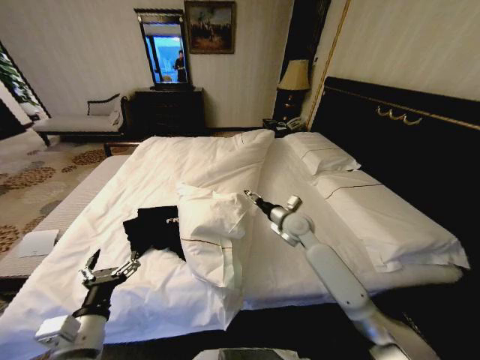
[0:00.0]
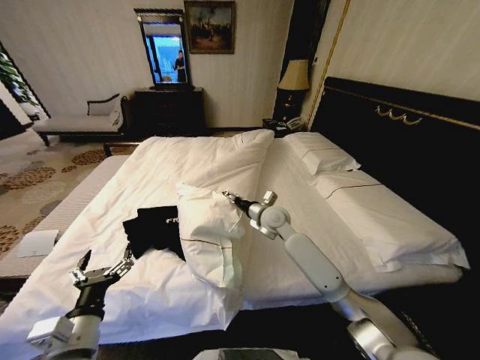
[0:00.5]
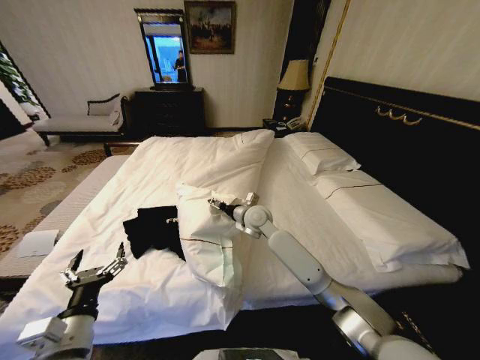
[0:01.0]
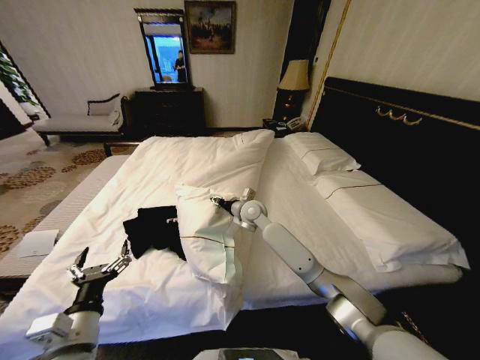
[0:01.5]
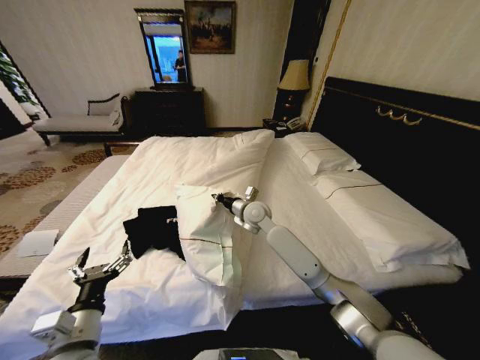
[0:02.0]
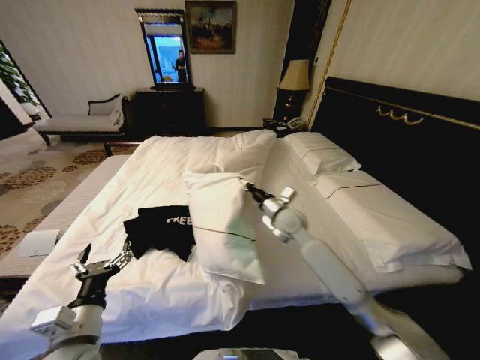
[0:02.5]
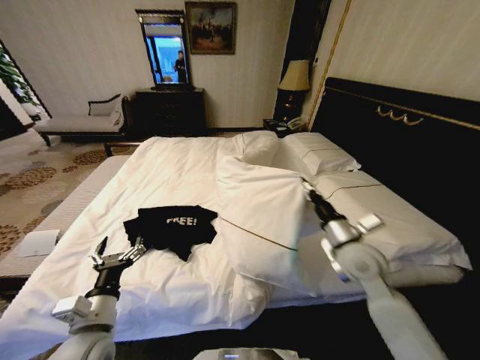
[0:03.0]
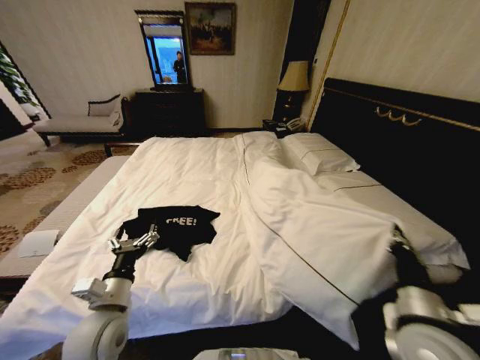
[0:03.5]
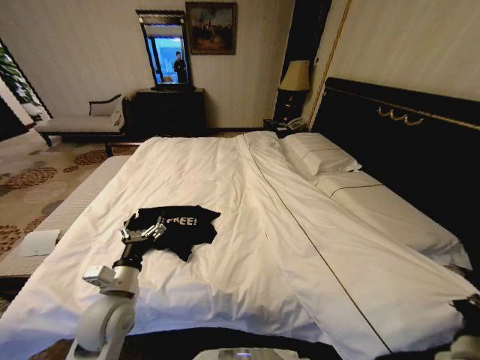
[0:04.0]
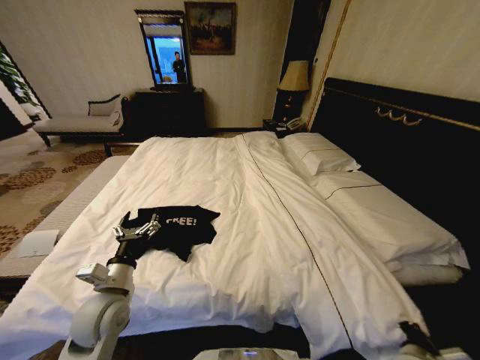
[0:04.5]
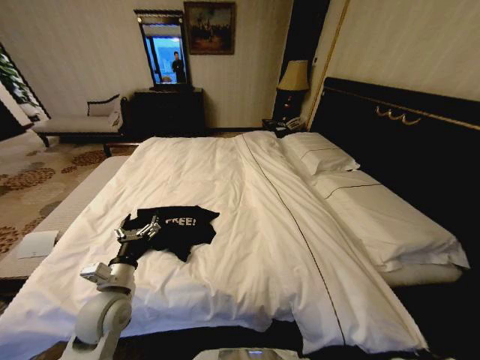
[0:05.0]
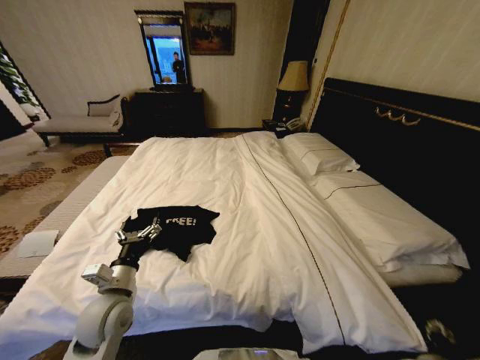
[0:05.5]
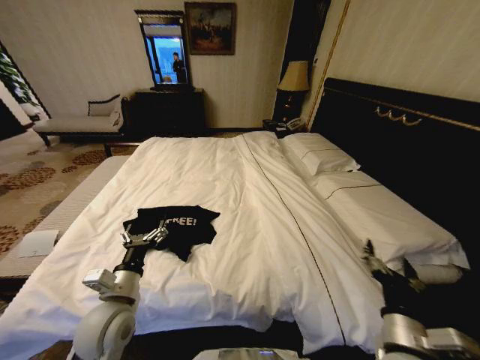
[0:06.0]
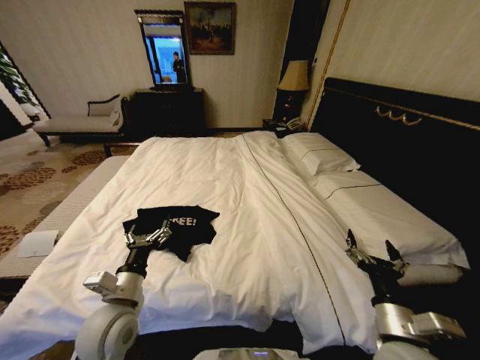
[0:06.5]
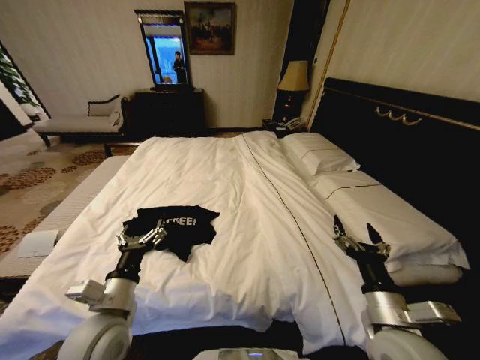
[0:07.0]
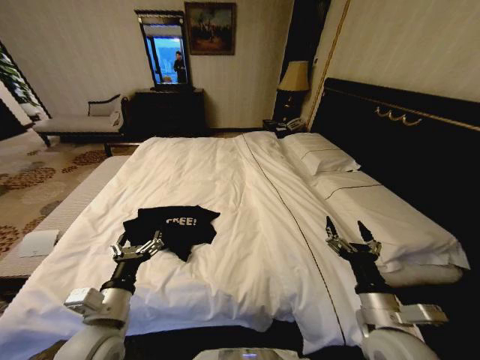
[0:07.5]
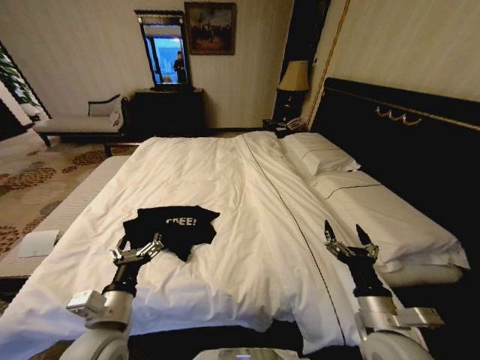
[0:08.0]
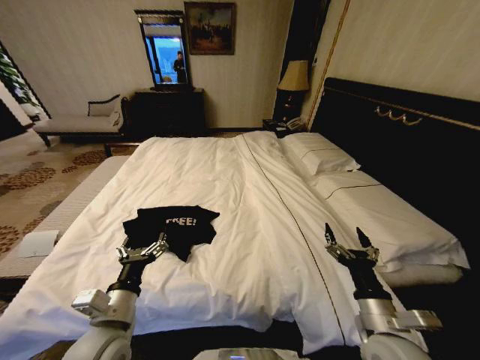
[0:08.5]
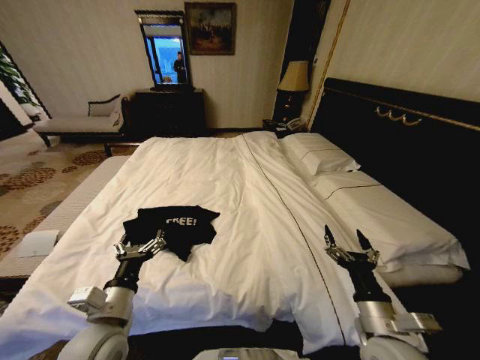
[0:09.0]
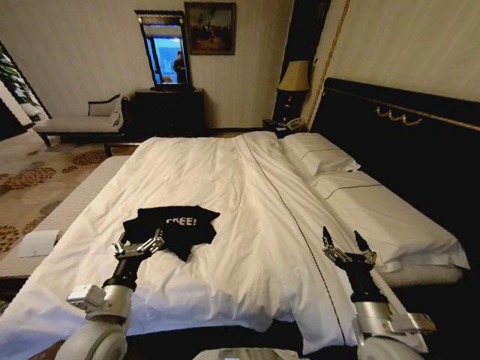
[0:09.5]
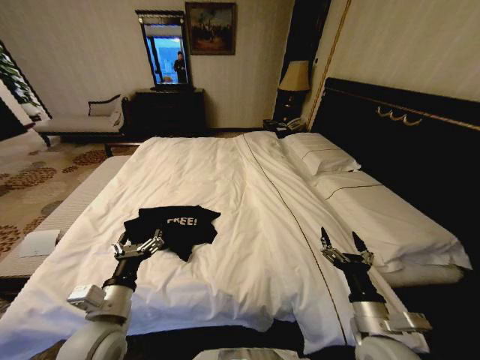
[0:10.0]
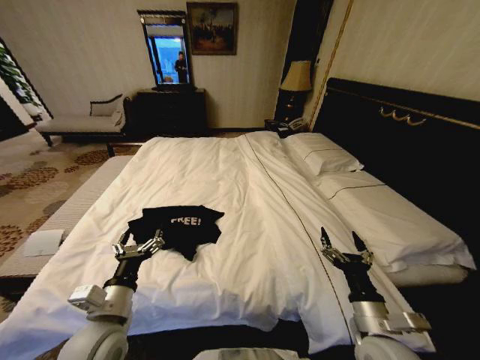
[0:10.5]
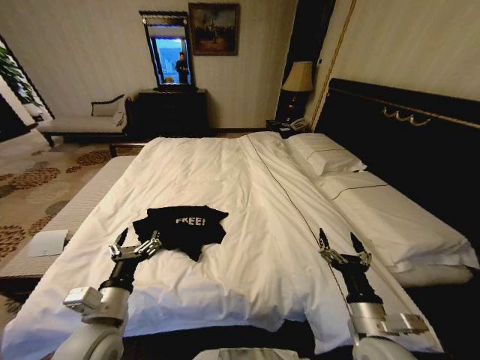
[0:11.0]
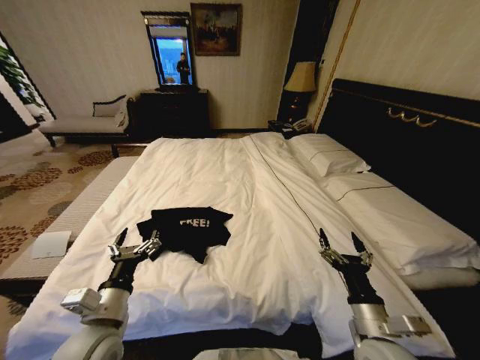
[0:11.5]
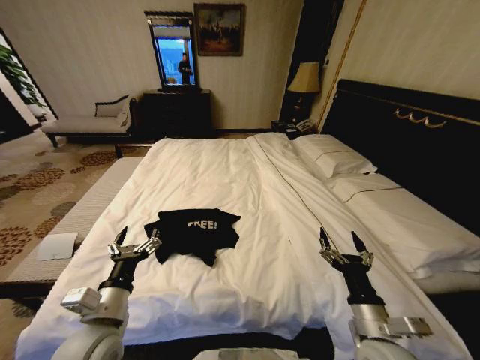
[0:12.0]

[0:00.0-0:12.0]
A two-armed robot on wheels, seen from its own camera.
Task of the whole recording: Fold the clothes on the bed.
0:00.0 to 0:02.0: The right gripper shifts roughly 10 cm to the left, and closes.
0:02.0 to 0:04.0: The left gripper shifts some 10 cm forward. The right gripper is displaced backward and to the right by some 50 cm.
0:04.0 to 0:06.0: The right gripper moves to the left, roughly 5 cm, goes downward and returns, approximately 15 cm each way, and opens.
0:06.0 to 0:08.0: The left gripper shifts by about 5 cm.
0:08.0 to 0:10.0: The grippers make only small movements.

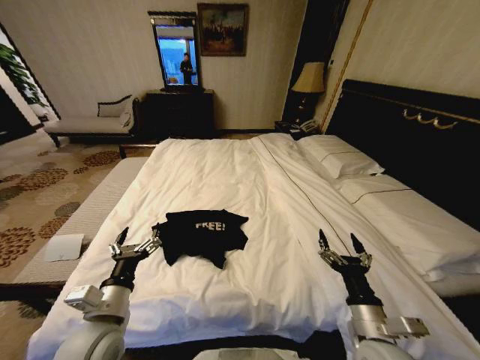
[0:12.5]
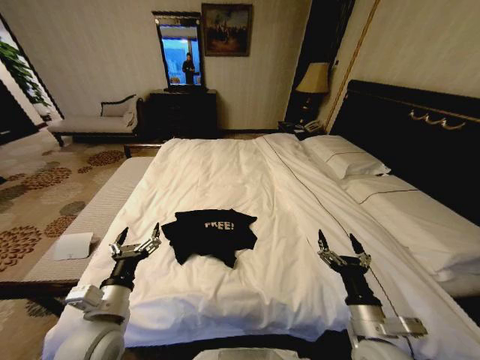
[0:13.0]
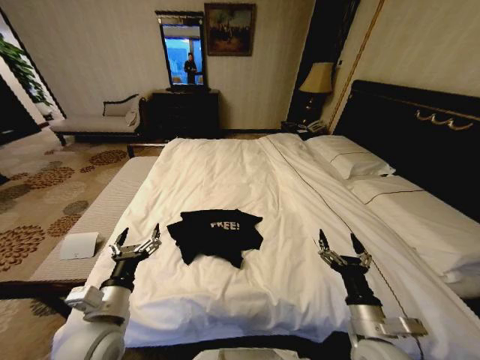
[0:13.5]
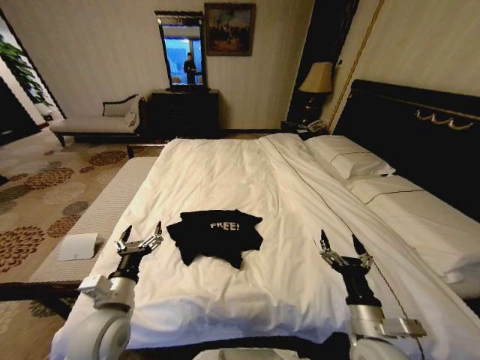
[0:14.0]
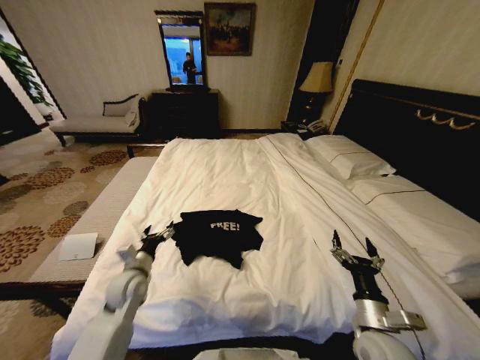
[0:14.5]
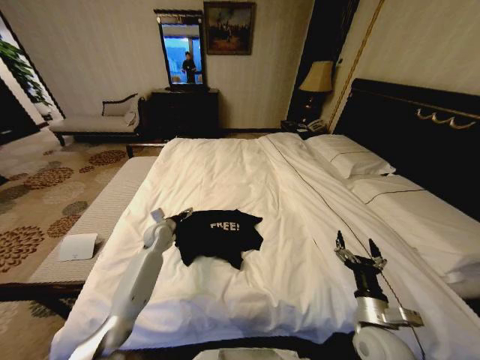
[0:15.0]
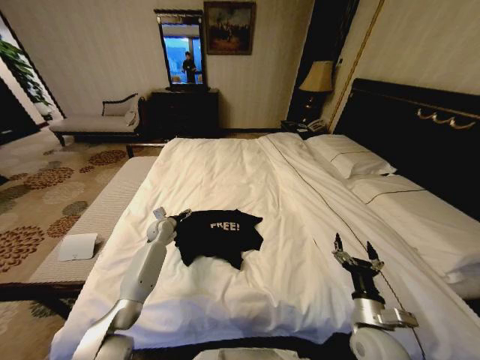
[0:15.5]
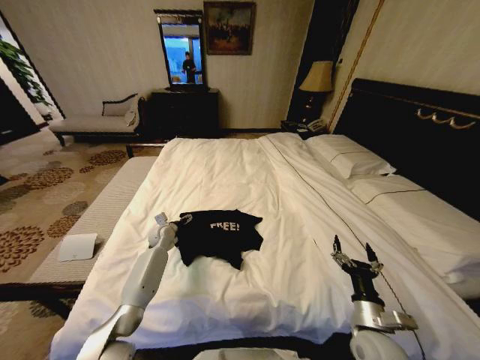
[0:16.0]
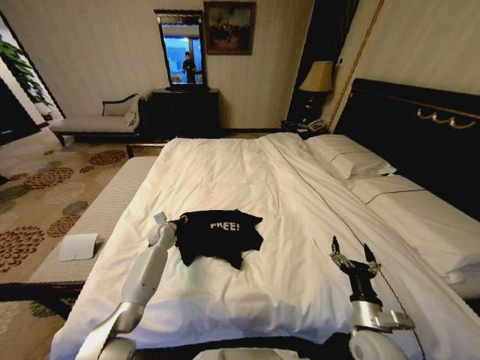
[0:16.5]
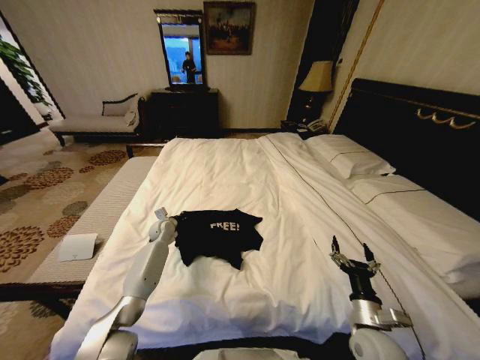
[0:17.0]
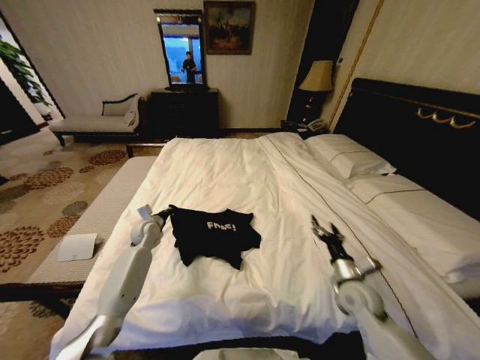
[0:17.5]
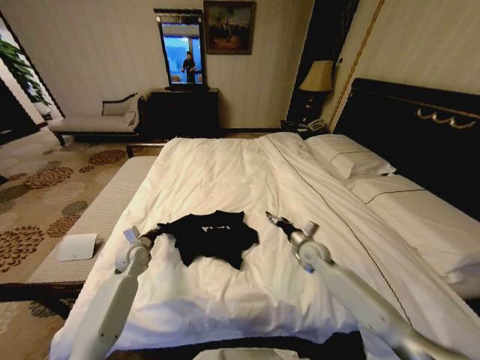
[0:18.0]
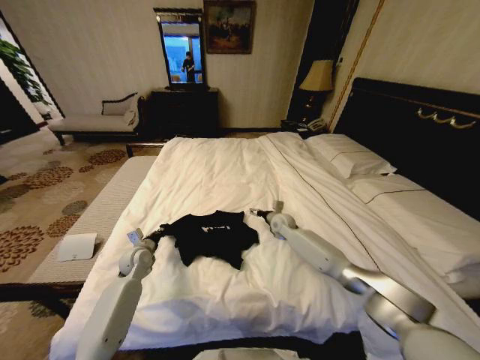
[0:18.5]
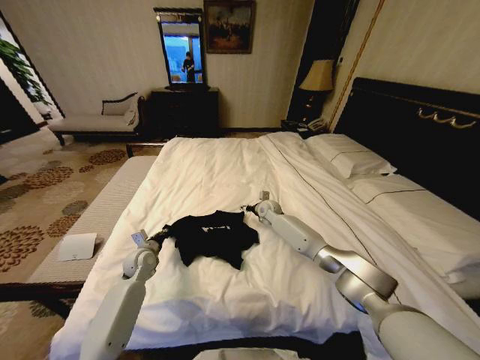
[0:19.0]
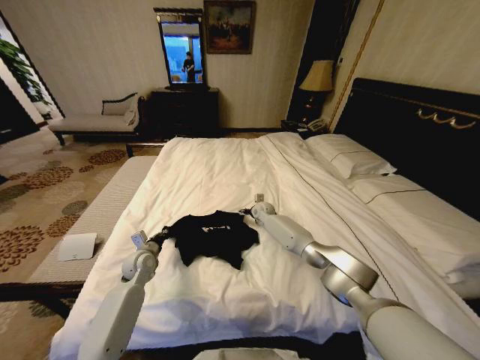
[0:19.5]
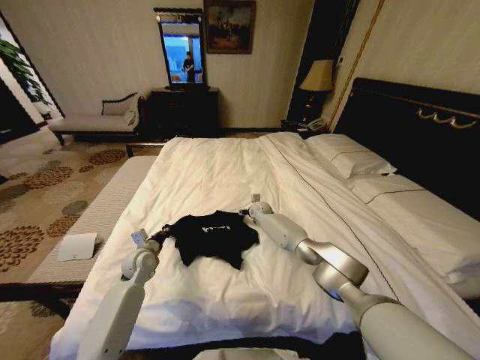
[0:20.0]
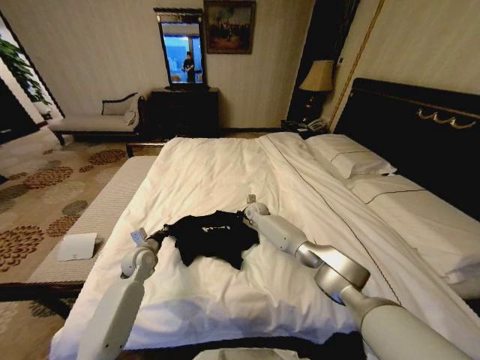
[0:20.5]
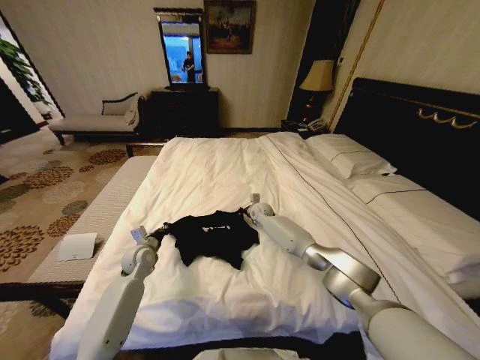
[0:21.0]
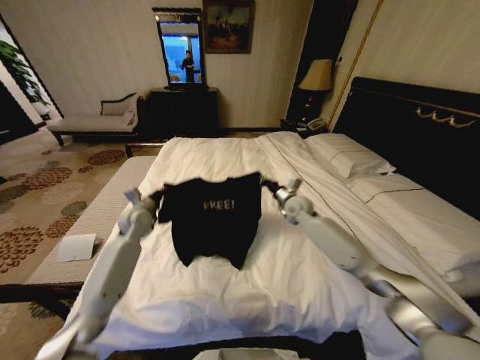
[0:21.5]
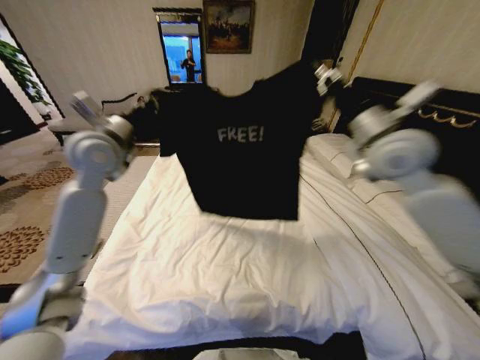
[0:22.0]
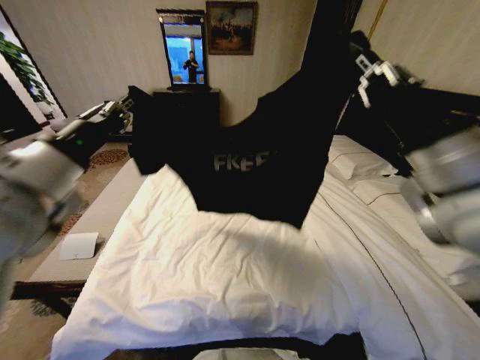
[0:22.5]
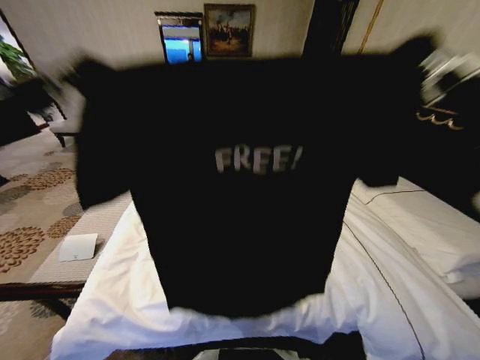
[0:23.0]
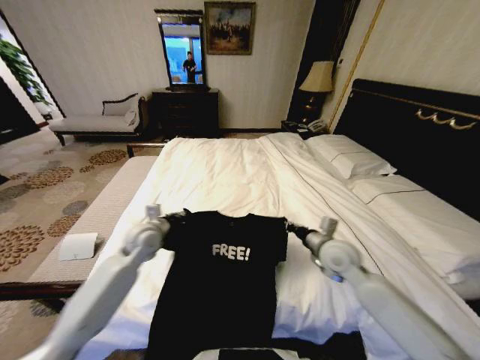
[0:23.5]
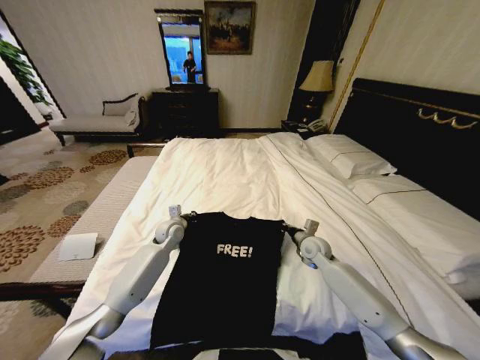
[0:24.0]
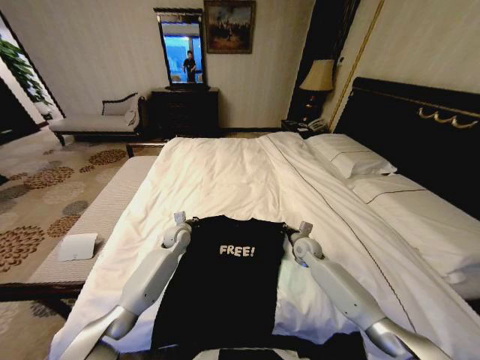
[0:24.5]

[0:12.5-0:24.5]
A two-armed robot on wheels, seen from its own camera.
Task of the whole recording: Fold the clothes on the bed.
0:12.5 to 0:14.5: The left gripper goes roughly 15 cm forward and downward.
0:14.5 to 0:16.5: The left gripper shifts about 20 cm forward, and closes.
0:16.5 to 0:18.5: The right gripper goes roughly 40 cm forward. The left gripper moves backward, some 10 cm, and closes its fingers.
0:18.5 to 0:20.5: The right gripper travels to the left and forward by approximately 10 cm, and closes its fingers.
0:20.5 to 0:22.5: The left gripper goes some 35 cm upward; the right gripper goes roughly 60 cm upward, backward and to the right.
0:22.5 to 0:24.5: The two grippers go some 50 cm downward and forward.

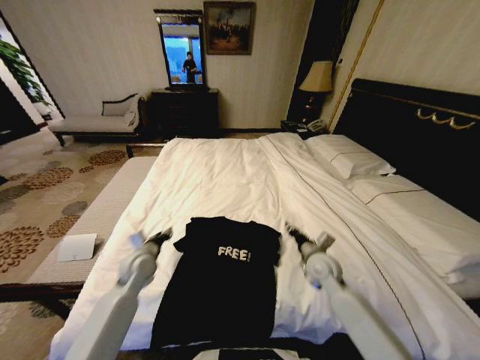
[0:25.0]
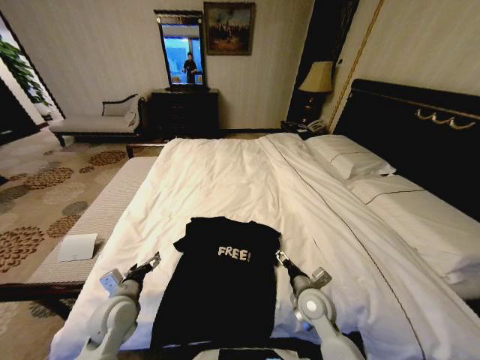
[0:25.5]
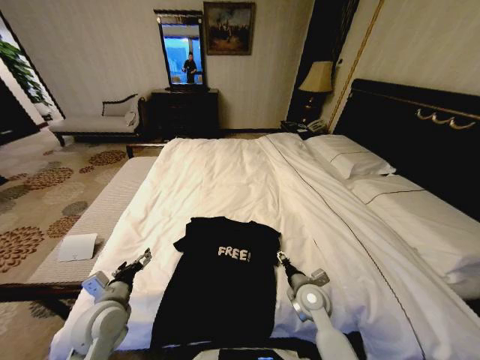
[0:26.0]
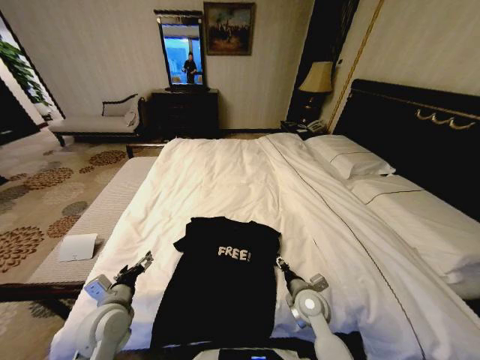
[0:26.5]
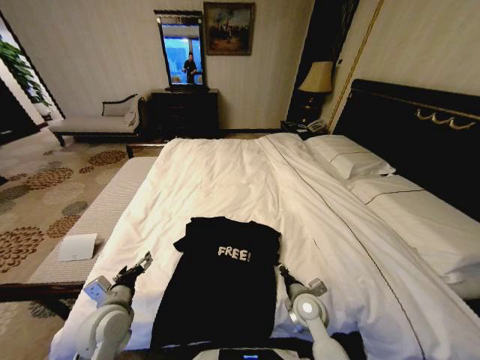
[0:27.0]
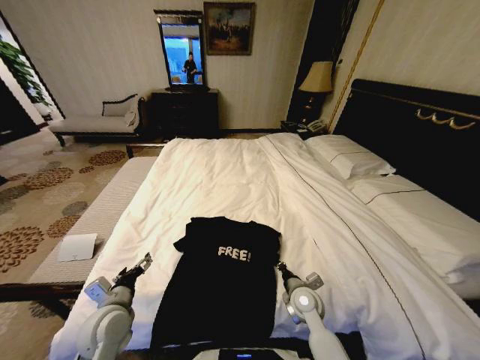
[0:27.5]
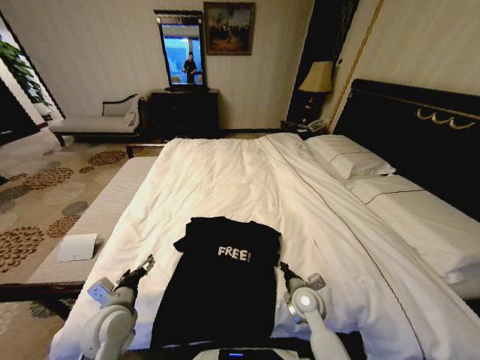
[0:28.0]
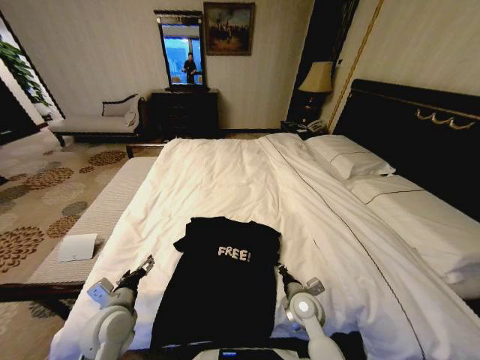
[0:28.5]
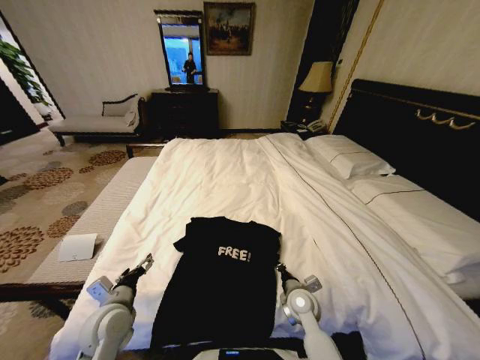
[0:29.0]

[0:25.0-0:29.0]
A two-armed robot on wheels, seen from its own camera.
Task of the whole recording: Fold the clothes on the bed.
0:25.0 to 0:27.0: The left gripper heads backward, covering roughly 15 cm, and opens up. Meanwhile the right gripper heads backward and downward, covering some 10 cm, and opens and closes again.
0:27.0 to 0:29.0: The grippers move only a little.
